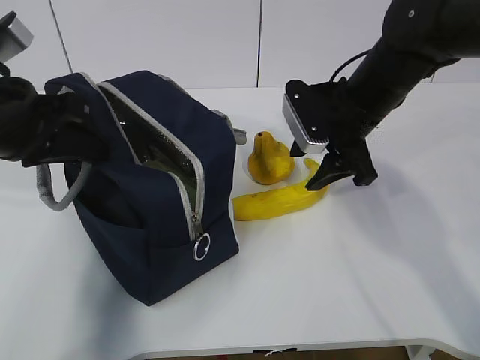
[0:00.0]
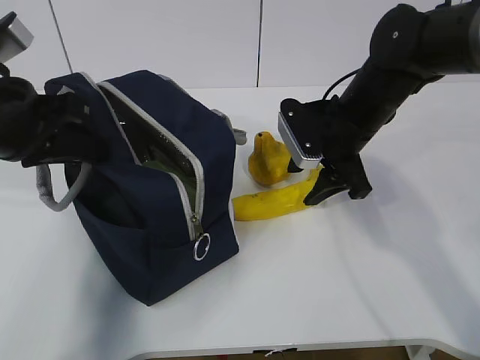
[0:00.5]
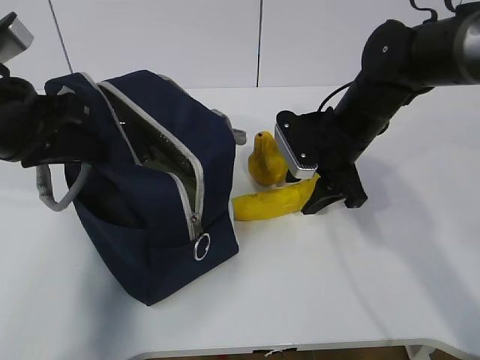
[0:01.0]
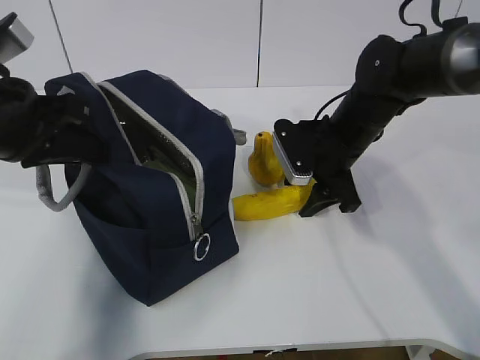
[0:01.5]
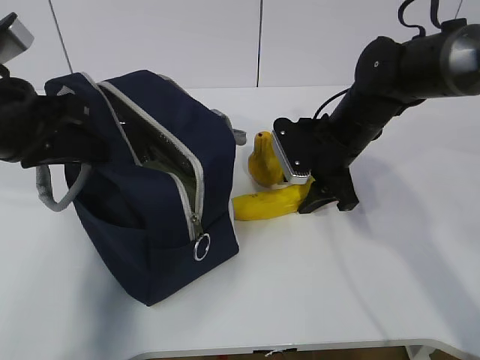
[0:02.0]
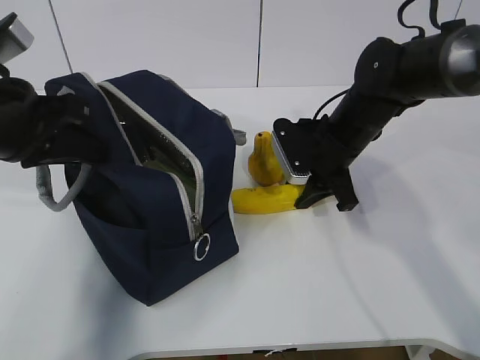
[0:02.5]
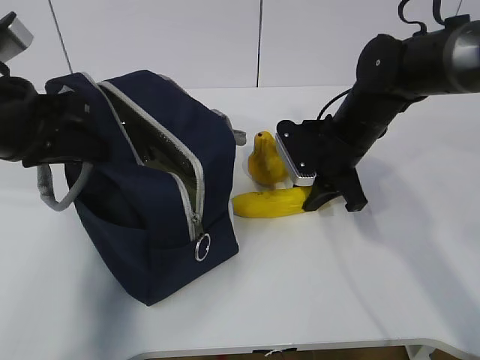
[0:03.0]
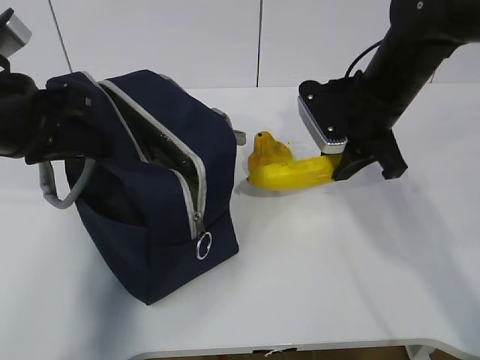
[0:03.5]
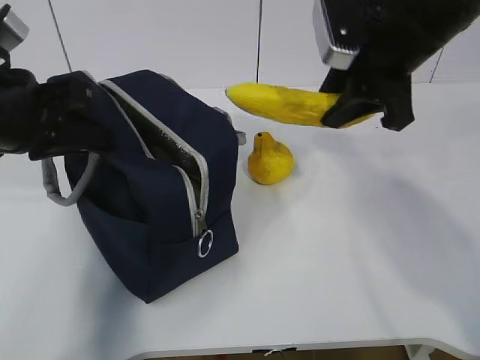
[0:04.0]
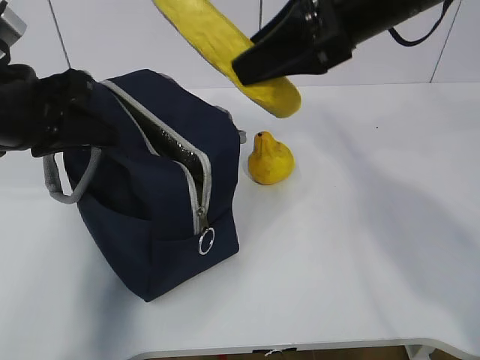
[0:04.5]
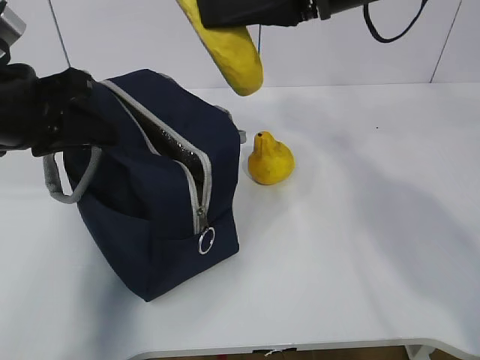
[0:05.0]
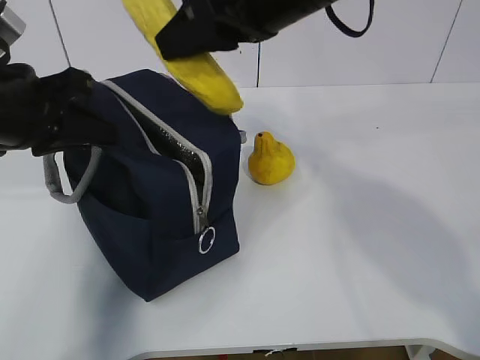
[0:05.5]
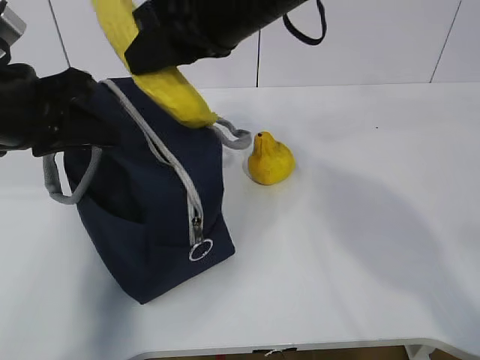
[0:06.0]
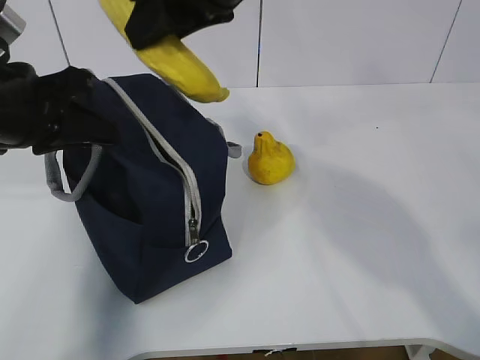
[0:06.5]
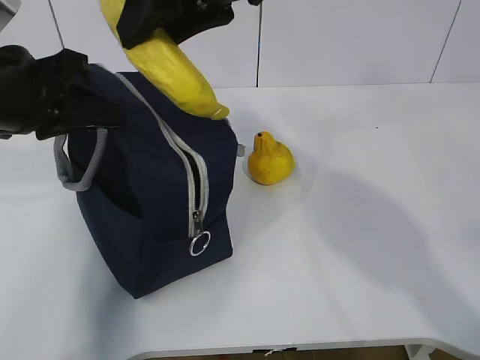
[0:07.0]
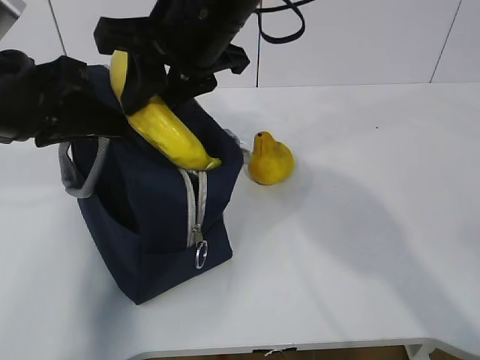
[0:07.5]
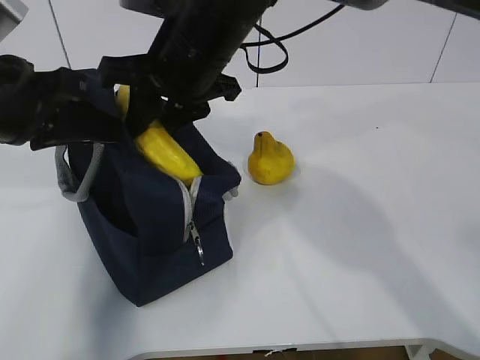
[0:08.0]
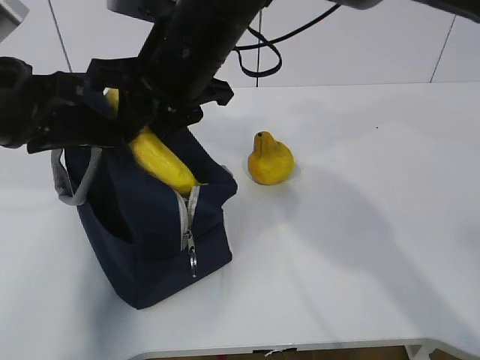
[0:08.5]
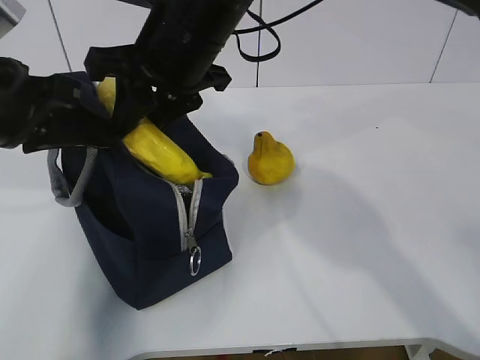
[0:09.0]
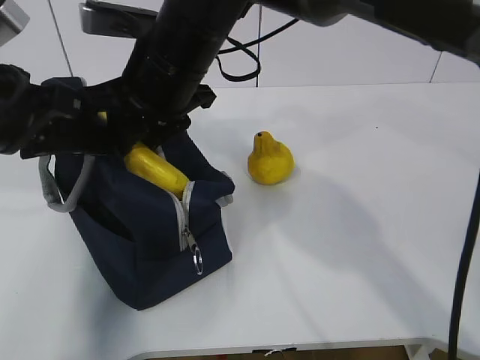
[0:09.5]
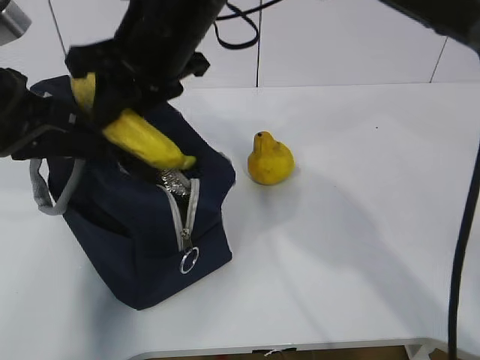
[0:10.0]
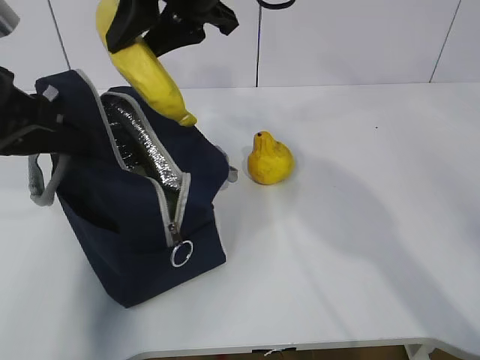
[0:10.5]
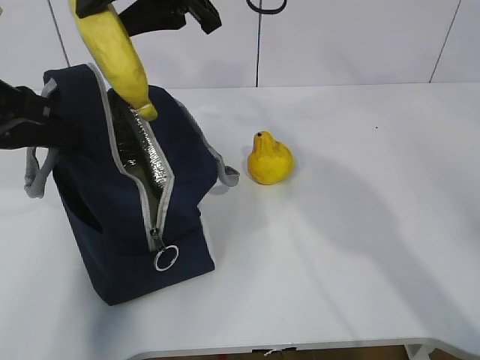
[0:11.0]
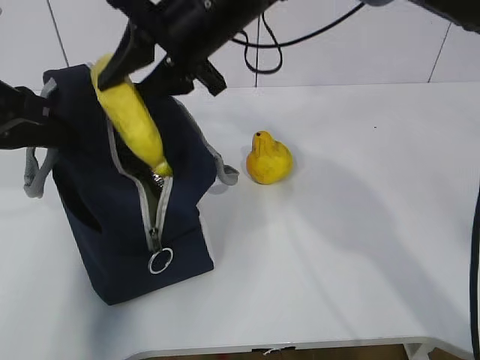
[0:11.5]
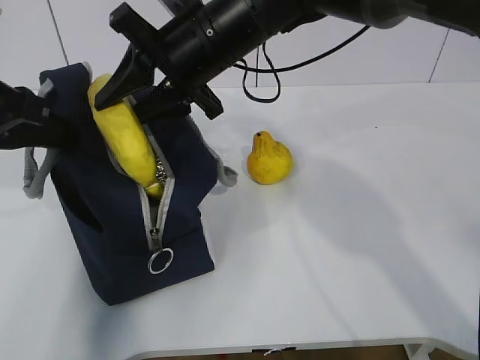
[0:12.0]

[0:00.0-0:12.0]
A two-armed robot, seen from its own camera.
Step, 0:00.0 to 0:07.0: Place it into the bag with your right hand.
0:00.0 to 0:02.0: The right gripper is displaced downward by some 5 cm.
0:02.0 to 0:04.0: The right gripper goes approximately 15 cm upward, and closes.
0:04.0 to 0:06.0: The right gripper shifts some 15 cm to the left.
0:06.0 to 0:08.0: The right gripper travels downward by about 5 cm.
0:08.0 to 0:10.0: The grippers move only a little.
0:10.0 to 0:12.0: The right gripper moves roughly 5 cm upward and comes back.

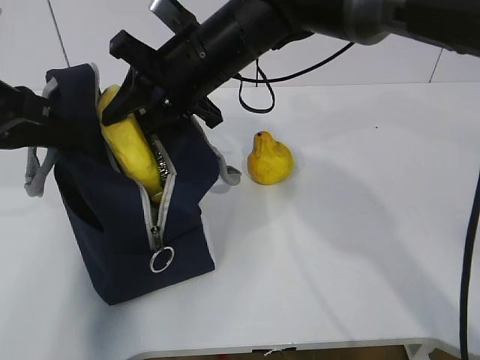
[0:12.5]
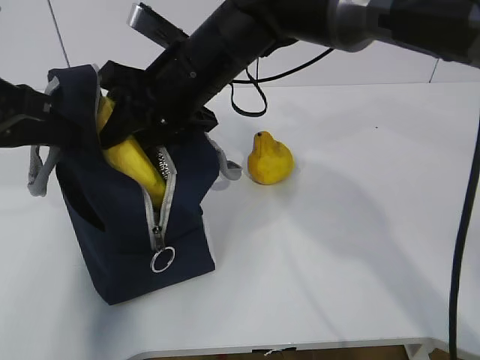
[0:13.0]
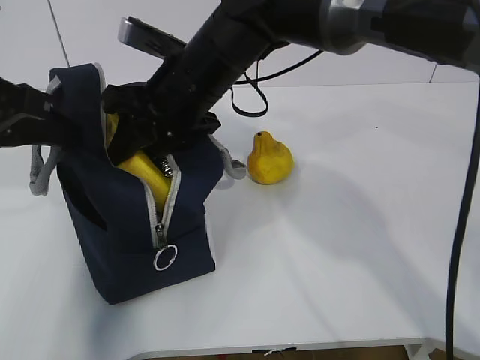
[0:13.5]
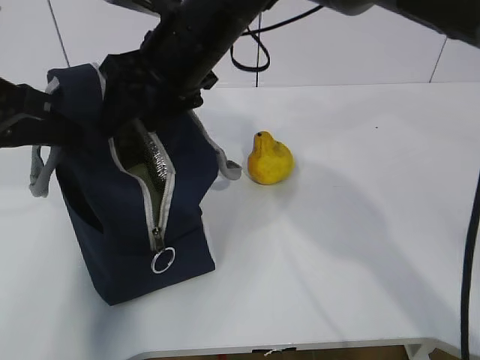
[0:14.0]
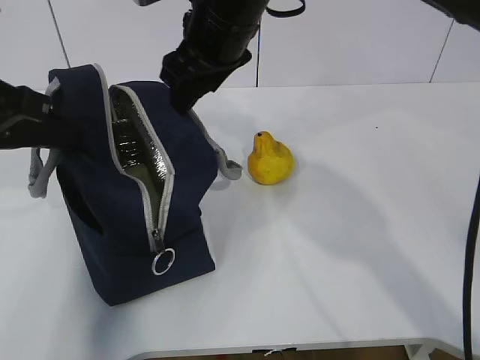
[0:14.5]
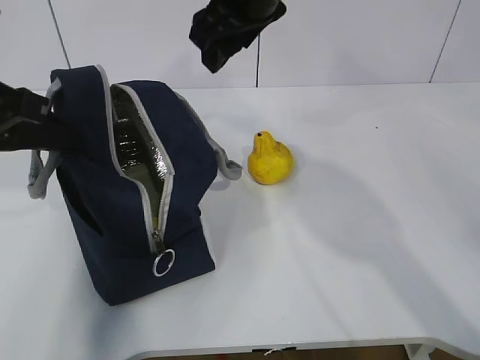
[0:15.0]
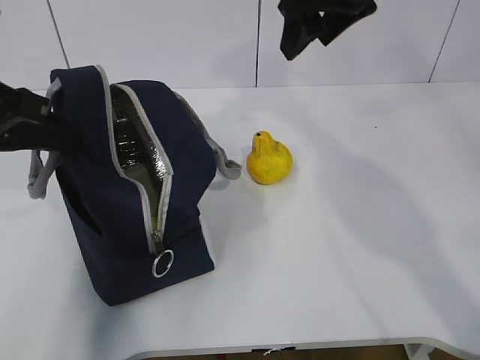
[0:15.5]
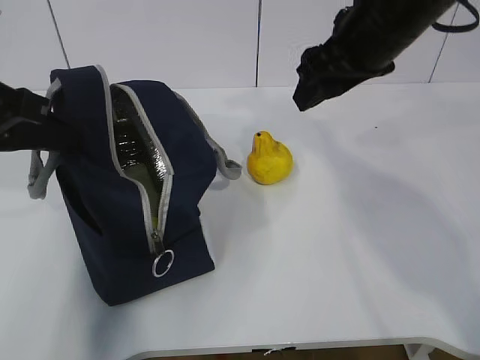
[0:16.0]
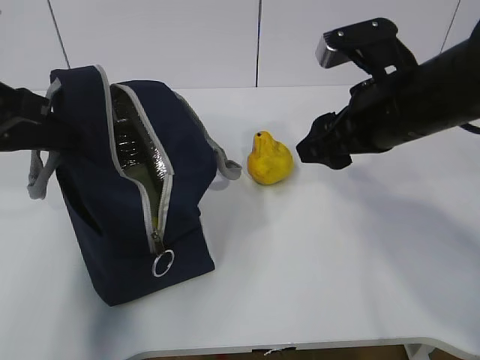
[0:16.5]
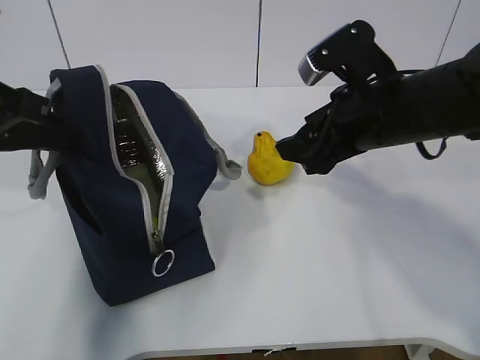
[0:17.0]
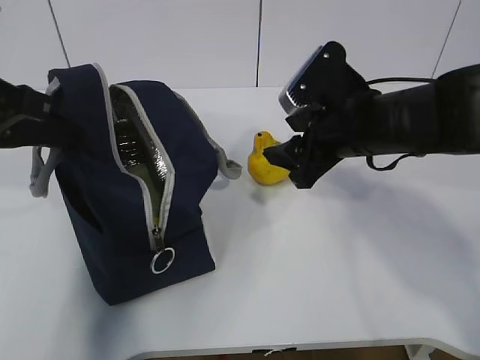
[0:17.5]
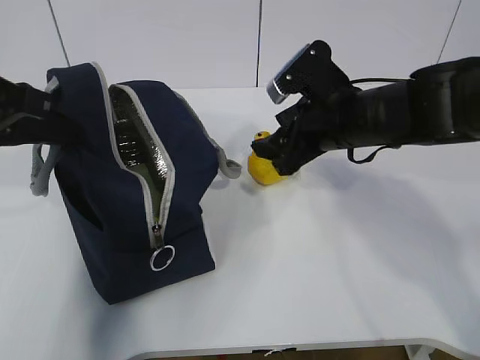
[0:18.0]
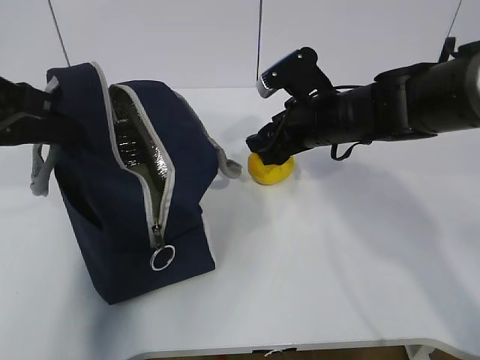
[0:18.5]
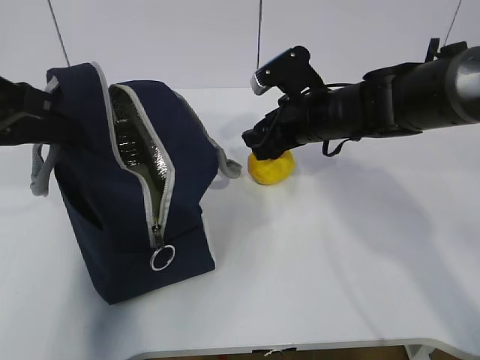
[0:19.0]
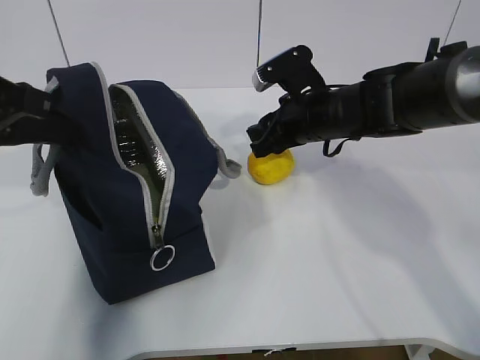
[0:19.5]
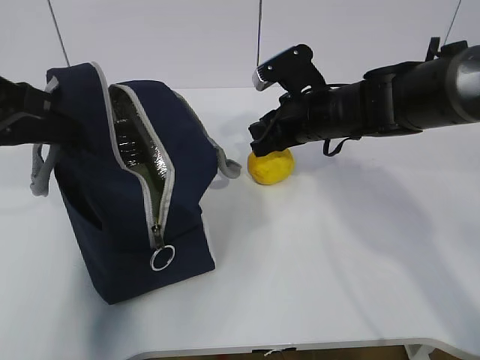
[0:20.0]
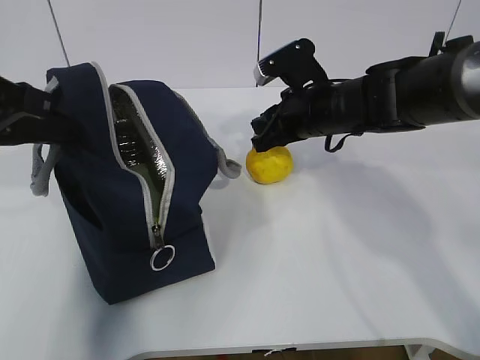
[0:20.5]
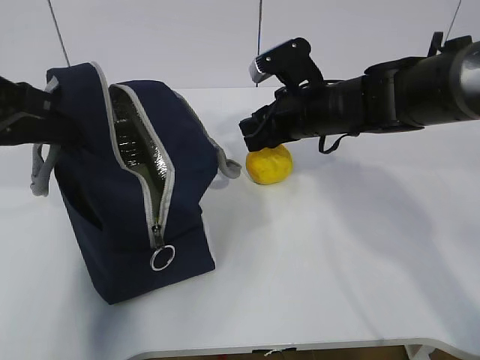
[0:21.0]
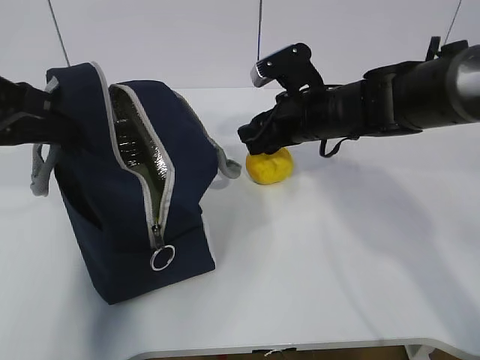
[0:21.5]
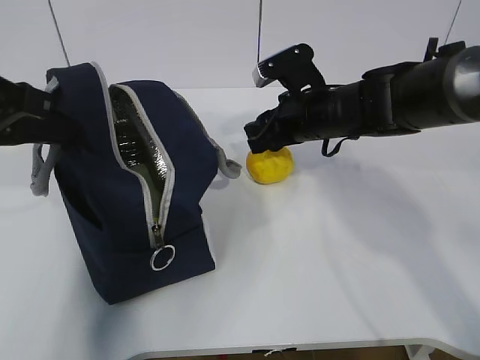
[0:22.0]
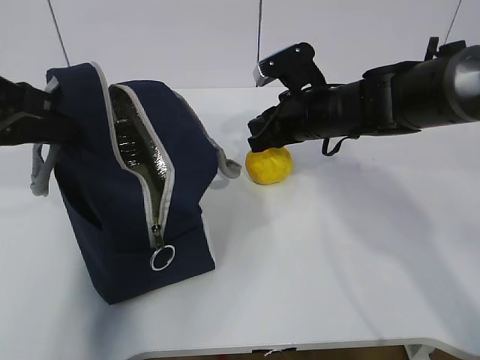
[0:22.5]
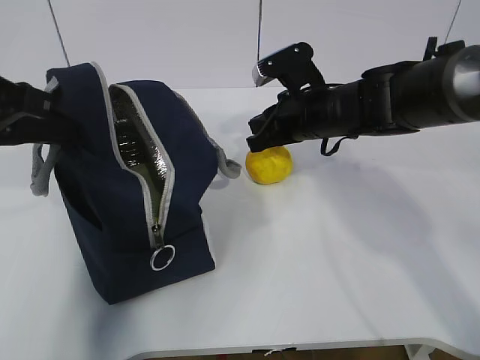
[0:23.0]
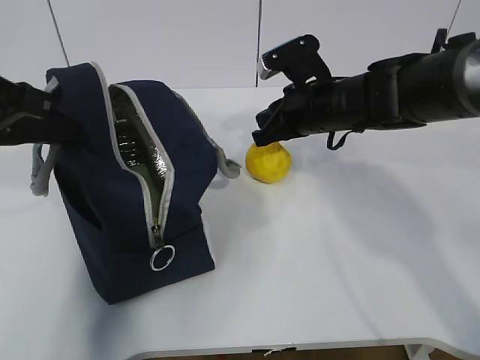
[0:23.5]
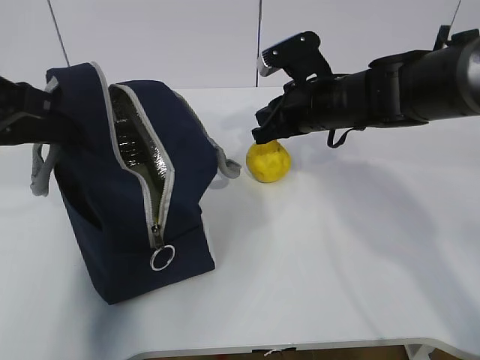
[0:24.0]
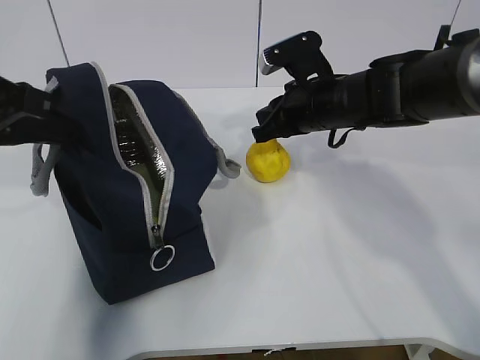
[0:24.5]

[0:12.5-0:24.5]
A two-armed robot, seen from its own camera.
Step, 0:12.5 to 0:16.5: Grab the pear with your right hand.
0:12.5 to 0:14.5: The right gripper opens up.
0:14.5 to 0:16.5: The right gripper travels to the right and backward by approximately 15 cm.
0:16.5 to 0:18.5: The right gripper moves forward and downward, some 10 cm.
0:18.5 to 0:20.5: The right gripper closes its fingers.
0:20.5 to 0:22.5: The right gripper opens, then closes once more.
0:22.5 to 0:24.5: The grippers stay close to where they were, moving slightly.

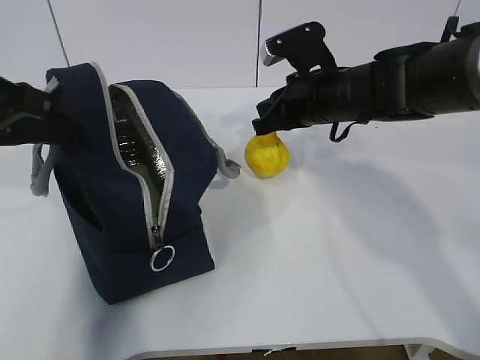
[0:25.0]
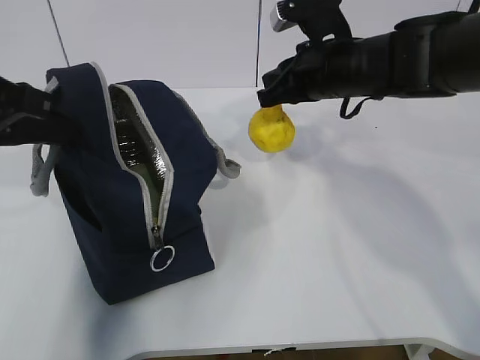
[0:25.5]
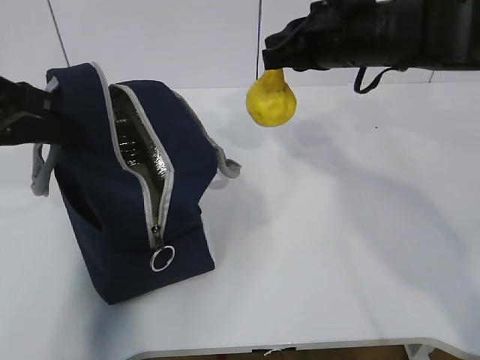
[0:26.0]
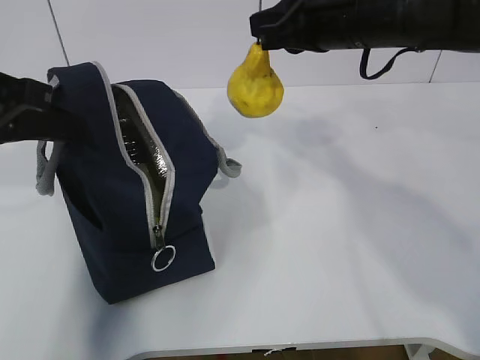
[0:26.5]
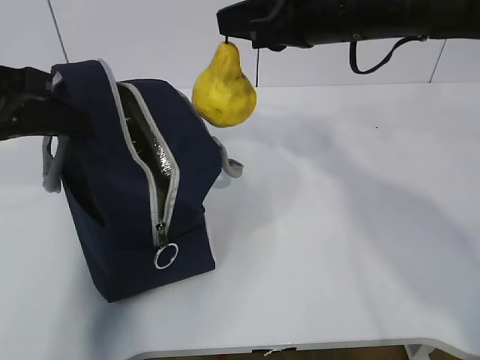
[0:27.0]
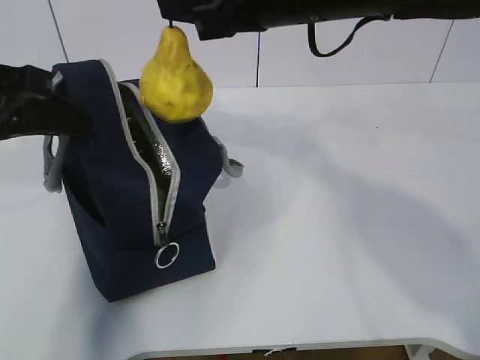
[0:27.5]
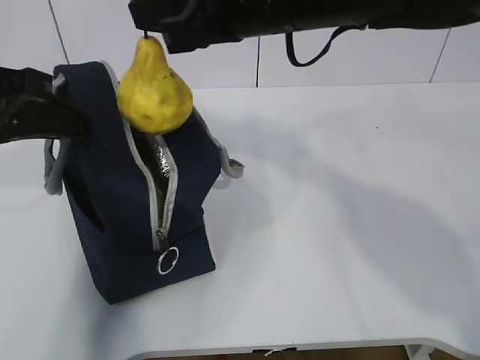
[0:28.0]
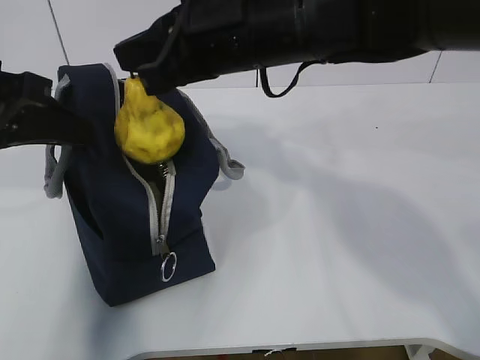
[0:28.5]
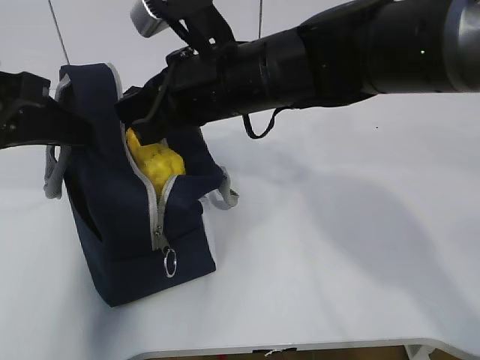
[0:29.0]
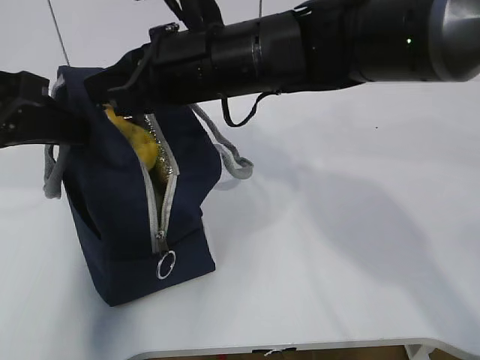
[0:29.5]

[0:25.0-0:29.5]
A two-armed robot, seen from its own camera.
0:25.0 to 0:27.0: The right gripper moves upward and backward, some 15 cm.
0:27.0 to 0:29.5: The right gripper goes about 10 cm to the left.
